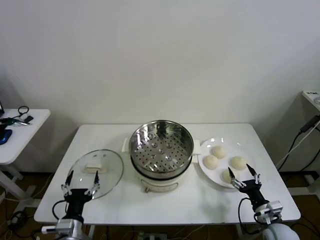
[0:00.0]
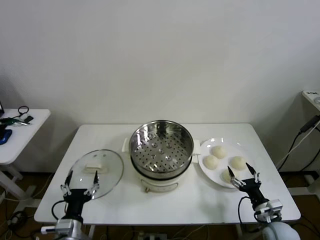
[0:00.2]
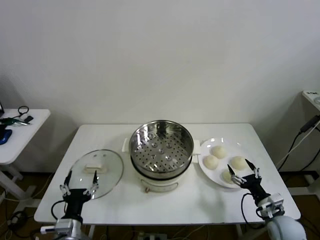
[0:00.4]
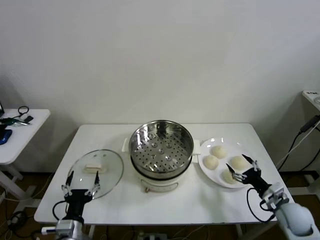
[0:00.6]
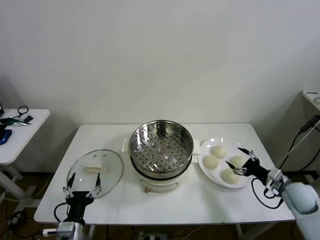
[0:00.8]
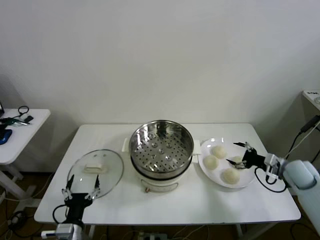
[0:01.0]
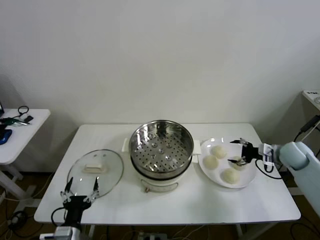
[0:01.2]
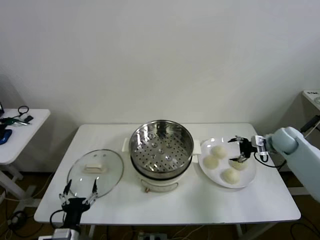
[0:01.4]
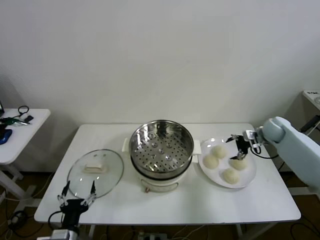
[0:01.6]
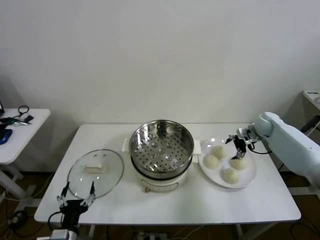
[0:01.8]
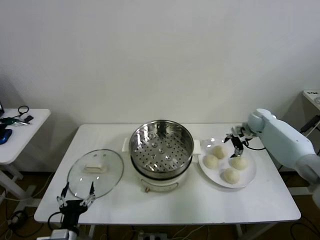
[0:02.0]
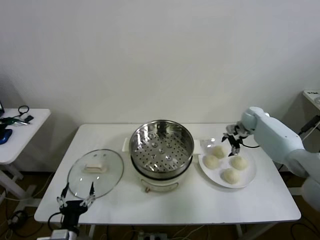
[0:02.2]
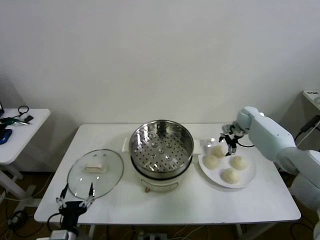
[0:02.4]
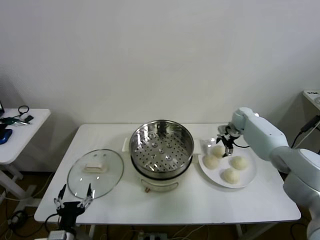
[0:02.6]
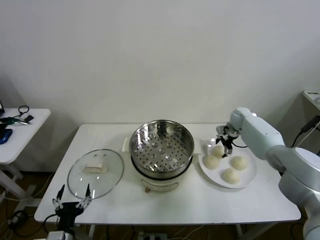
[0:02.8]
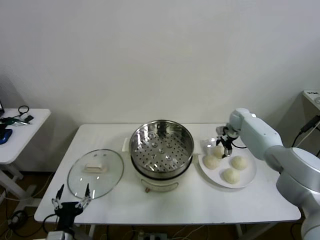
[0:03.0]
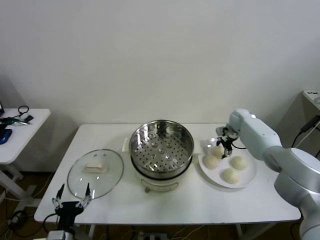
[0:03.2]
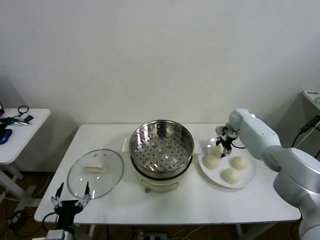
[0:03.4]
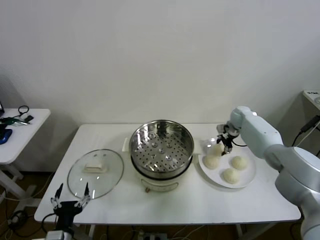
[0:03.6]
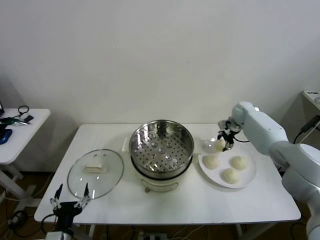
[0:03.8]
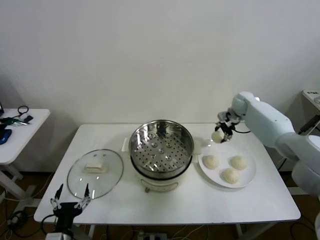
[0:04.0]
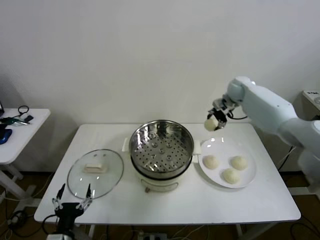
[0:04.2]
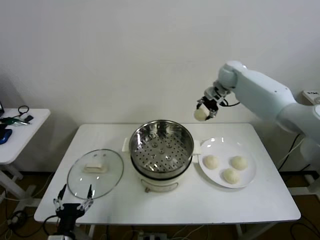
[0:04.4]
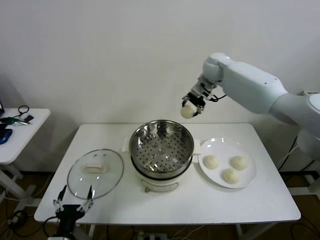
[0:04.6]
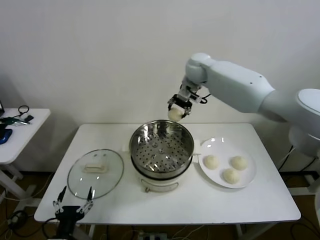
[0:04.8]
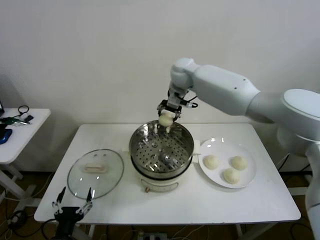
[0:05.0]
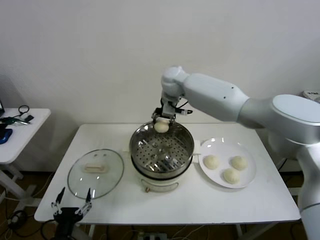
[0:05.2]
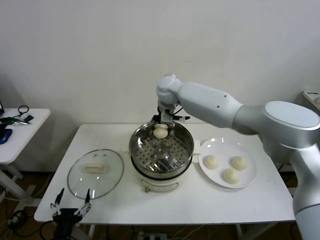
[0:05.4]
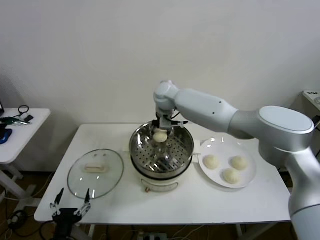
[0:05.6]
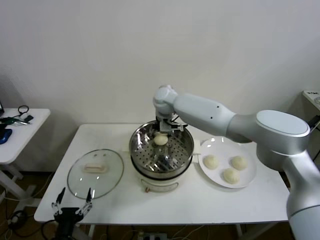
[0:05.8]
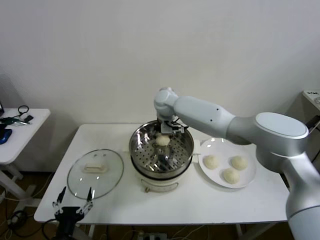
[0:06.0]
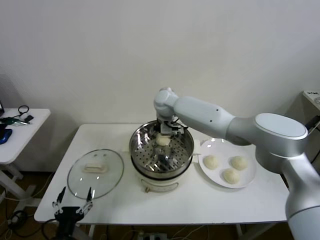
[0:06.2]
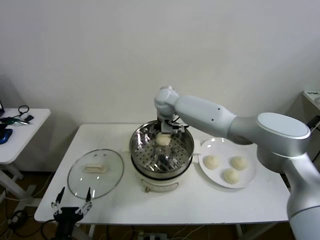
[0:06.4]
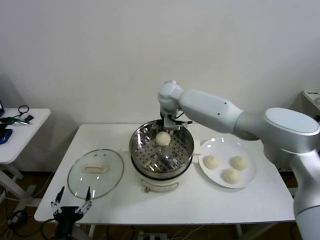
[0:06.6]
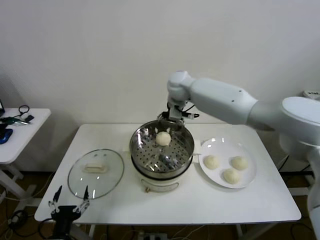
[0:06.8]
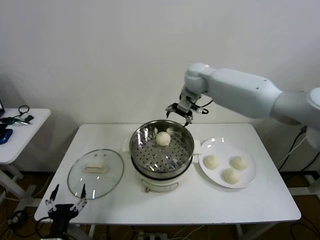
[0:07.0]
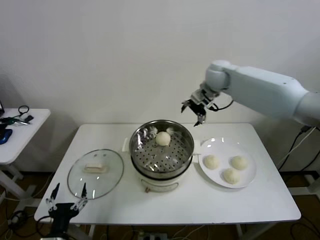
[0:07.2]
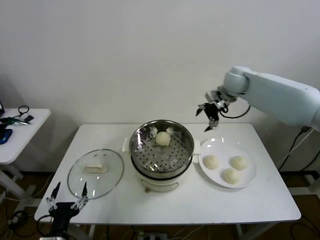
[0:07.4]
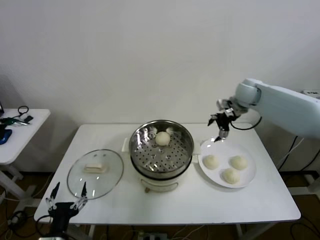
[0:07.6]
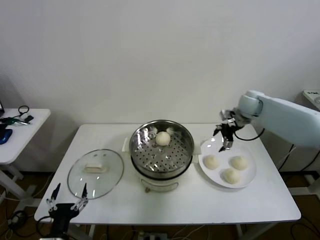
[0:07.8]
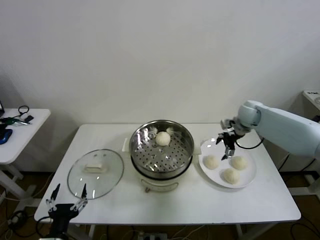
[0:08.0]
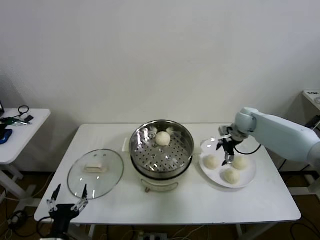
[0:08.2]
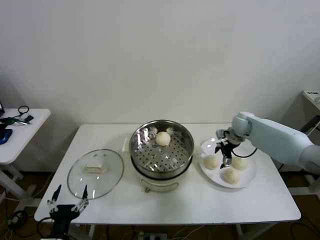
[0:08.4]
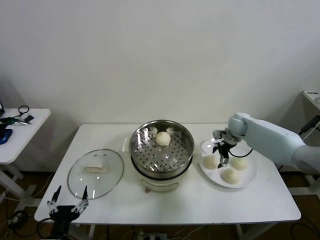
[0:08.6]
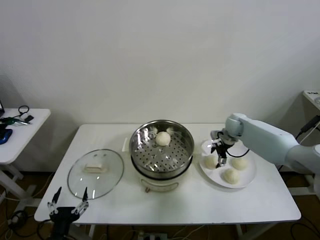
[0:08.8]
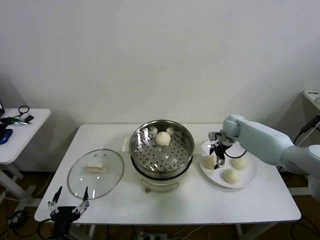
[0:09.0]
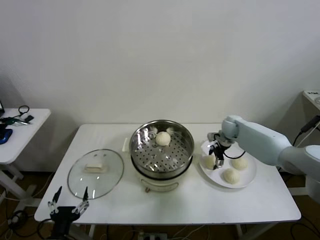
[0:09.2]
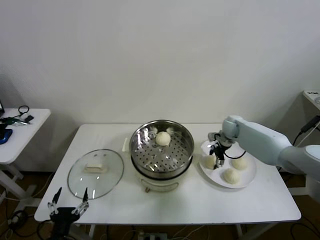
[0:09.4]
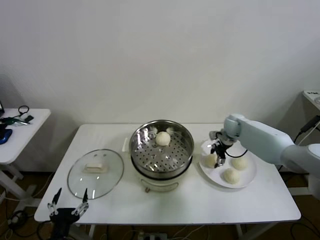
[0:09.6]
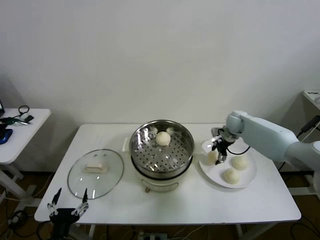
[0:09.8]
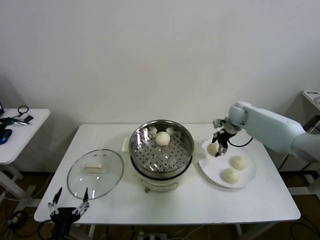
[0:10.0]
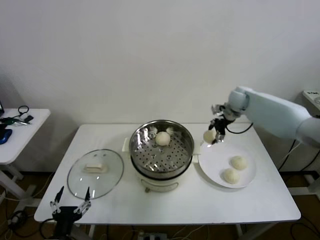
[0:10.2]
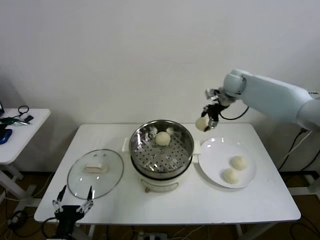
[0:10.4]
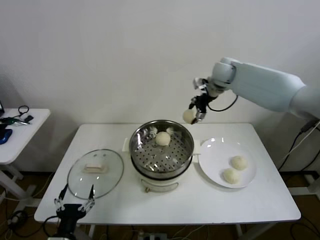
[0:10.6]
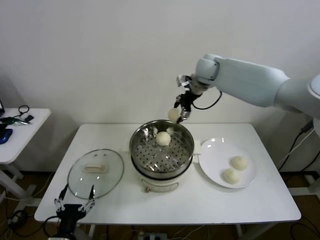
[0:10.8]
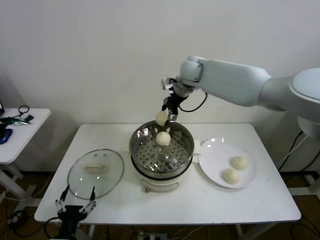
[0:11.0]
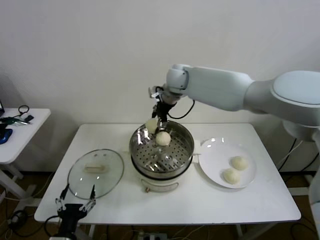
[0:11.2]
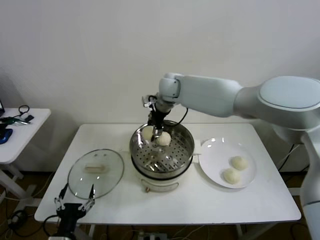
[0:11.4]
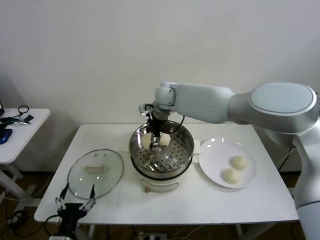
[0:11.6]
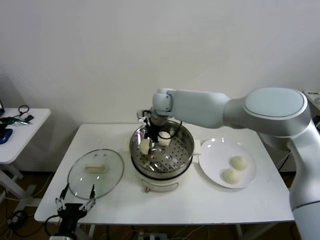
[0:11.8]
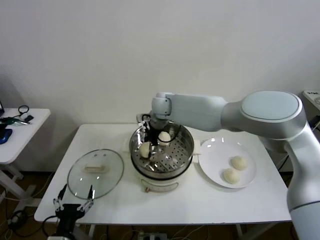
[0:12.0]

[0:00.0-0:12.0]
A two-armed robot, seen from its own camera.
Step, 0.0 to 3.2 s: Grasp the baozi in the plate with right gripper.
Step, 3.4 to 6.0 s: Place the baozi on the steamer with right gripper.
Step, 6.2 to 9.0 s: Grasp the baozi in the plate with right gripper.
1.6 to 3.0 s: The right gripper is displaced to the left and forward by some 10 cm, and closes up.
3.0 to 4.4 s: The right gripper heads upward and to the left, covering approximately 25 cm, and closes up.
4.4 to 6.0 s: The right gripper travels to the left and downward by some 25 cm, and opens up.
6.0 to 7.6 s: The right gripper shifts about 30 cm to the right, and opens up.
7.6 to 9.0 s: The right gripper travels downward by roughly 15 cm.
9.0 to 10.4 s: The right gripper is displaced upward by approximately 20 cm, and closes its fingers.
10.4 to 12.0 s: The right gripper moves to the left, about 25 cm.

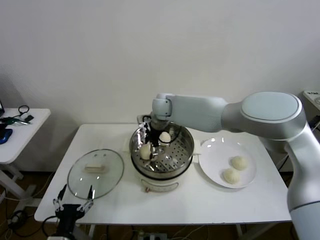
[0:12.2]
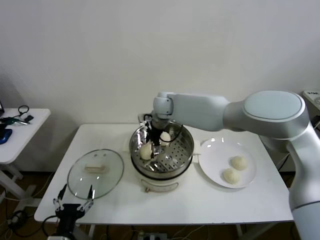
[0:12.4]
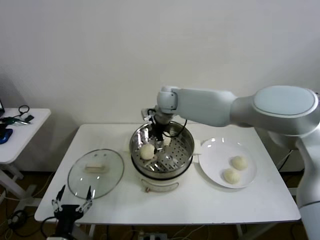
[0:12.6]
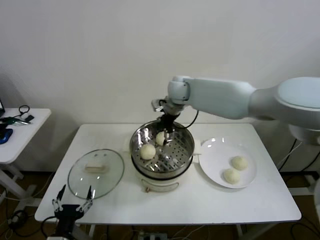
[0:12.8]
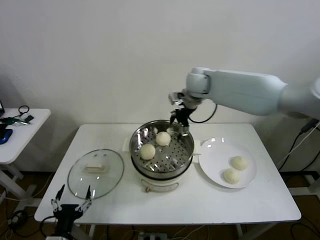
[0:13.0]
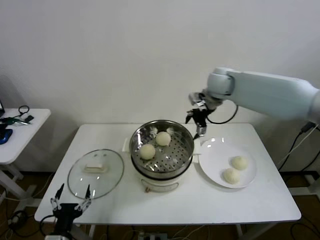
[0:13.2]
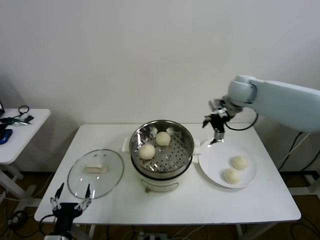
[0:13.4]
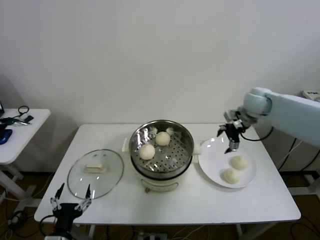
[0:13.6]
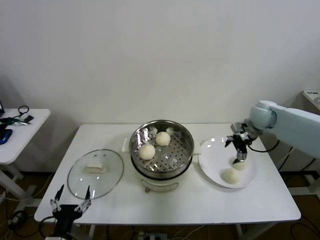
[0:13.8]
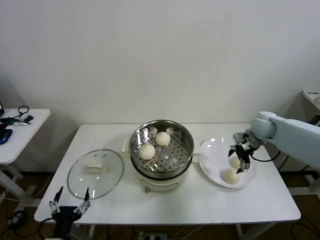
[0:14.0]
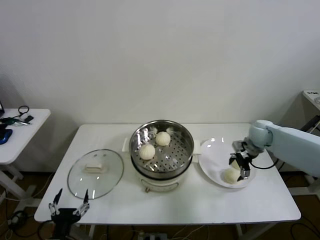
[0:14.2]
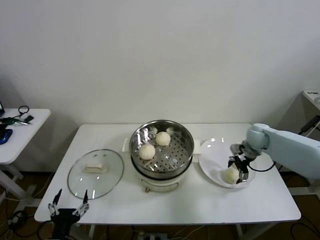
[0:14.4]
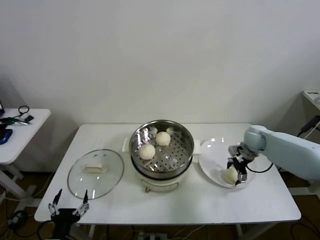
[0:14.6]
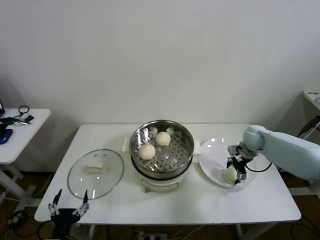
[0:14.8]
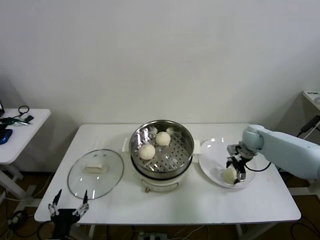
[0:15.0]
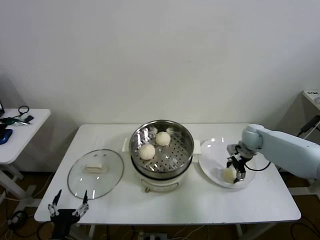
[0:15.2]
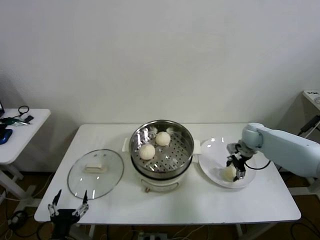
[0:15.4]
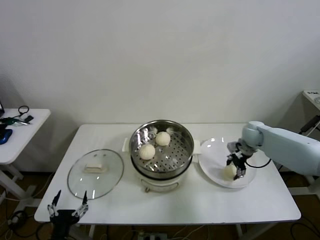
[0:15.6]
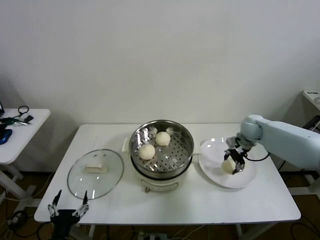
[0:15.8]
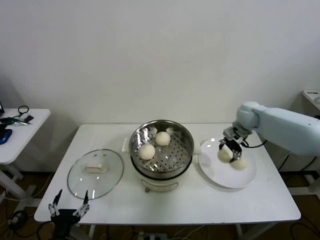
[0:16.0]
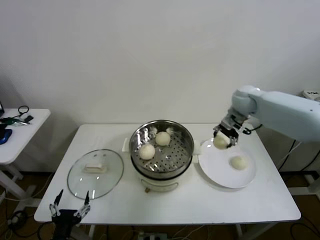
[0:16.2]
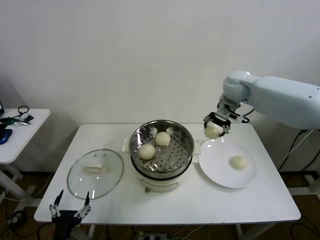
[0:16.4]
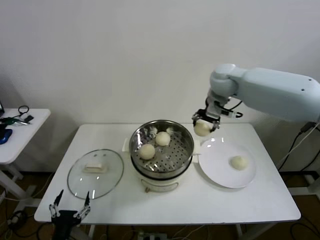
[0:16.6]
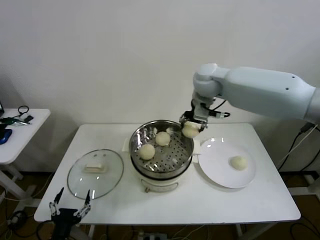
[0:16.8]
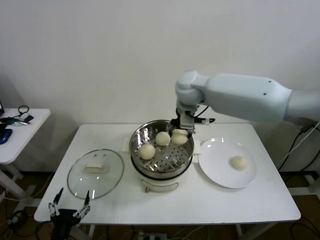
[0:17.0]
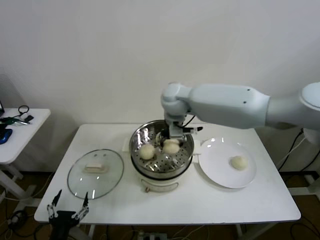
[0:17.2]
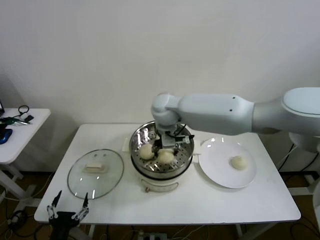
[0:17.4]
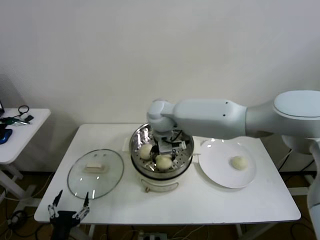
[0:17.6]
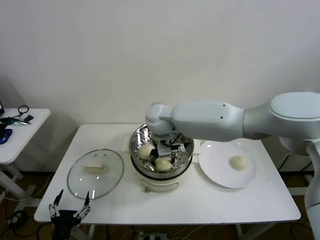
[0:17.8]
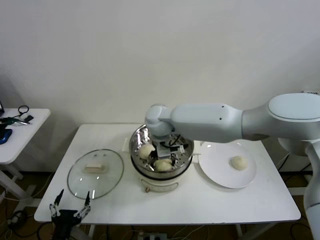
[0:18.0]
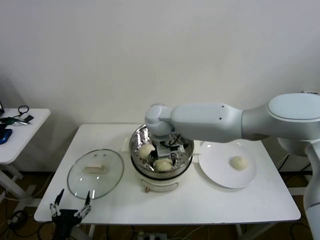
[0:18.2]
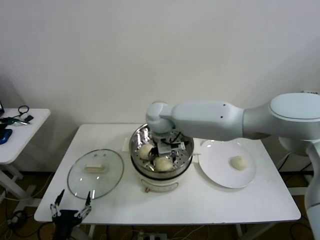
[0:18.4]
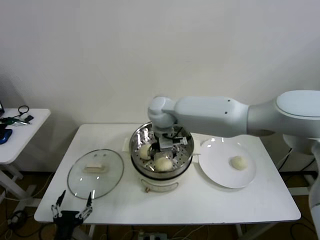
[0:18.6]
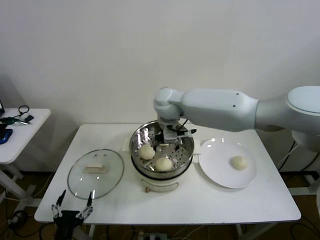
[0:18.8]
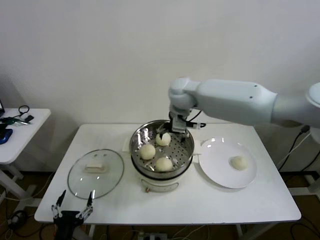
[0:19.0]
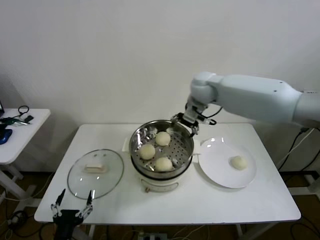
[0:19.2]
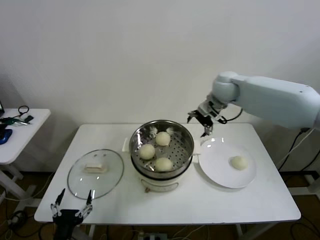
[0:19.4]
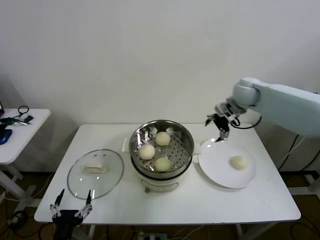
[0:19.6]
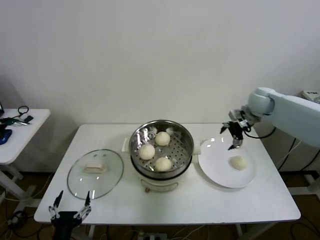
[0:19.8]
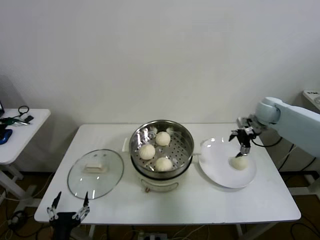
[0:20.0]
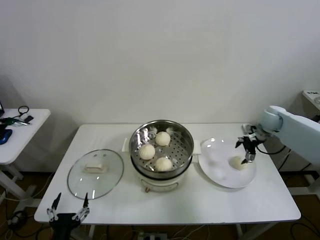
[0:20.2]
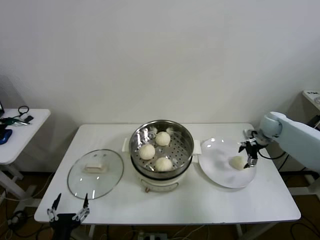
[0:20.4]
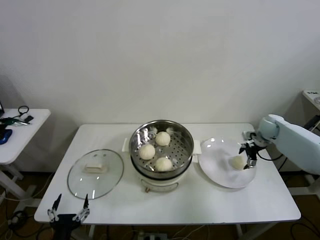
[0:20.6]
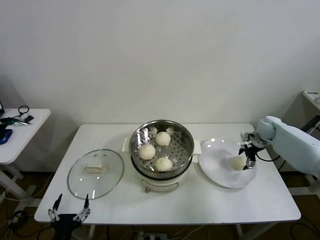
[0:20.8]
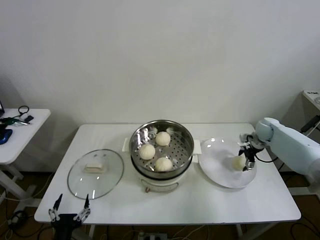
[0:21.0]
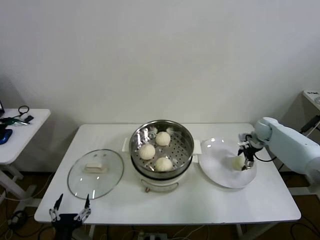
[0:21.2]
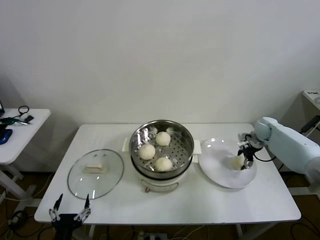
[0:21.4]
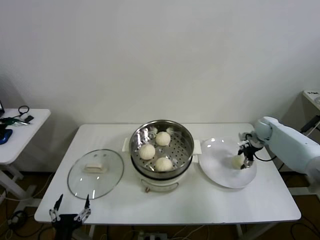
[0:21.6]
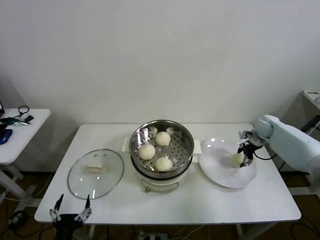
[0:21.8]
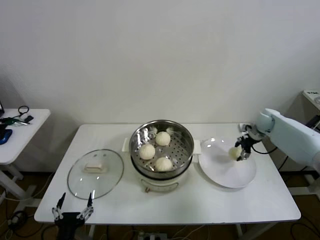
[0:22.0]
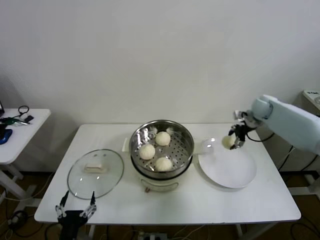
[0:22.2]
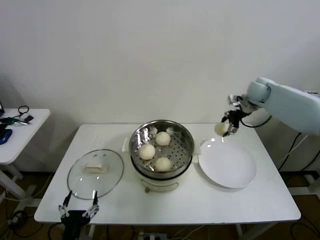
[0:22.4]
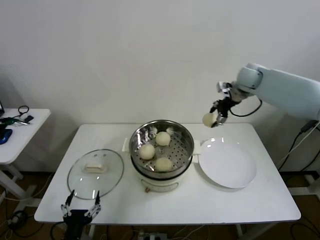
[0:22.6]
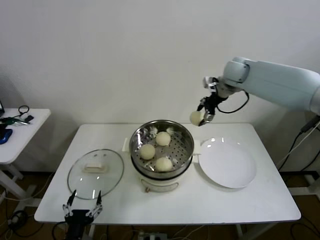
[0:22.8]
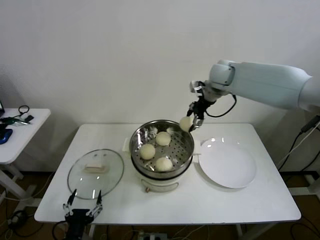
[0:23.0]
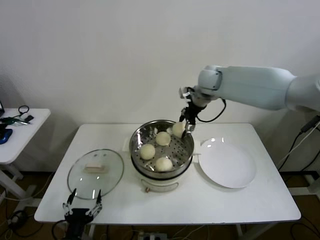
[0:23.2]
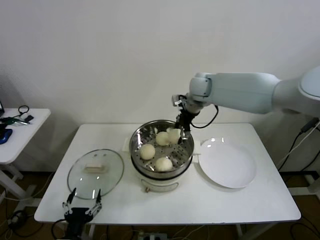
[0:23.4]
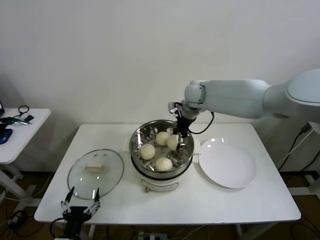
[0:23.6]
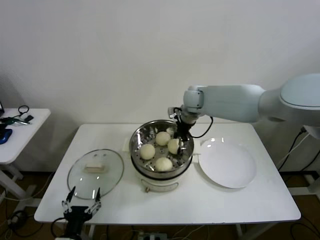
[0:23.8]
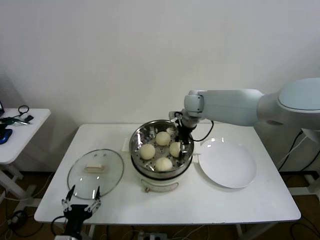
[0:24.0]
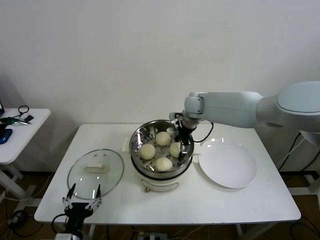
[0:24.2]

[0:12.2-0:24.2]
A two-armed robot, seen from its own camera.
Step, 12.4 to 15.2 s: Grasp the baozi in the plate with right gripper.
Step, 15.4 to 18.0 s: Place the baozi on the steamer with right gripper.
Step, 18.2 to 21.4 s: Grasp the baozi in the plate with right gripper.
12.2 to 13.8 s: The right gripper is displaced to the right by about 35 cm.
13.8 to 15.2 s: The right gripper travels downward by some 10 cm, and closes up.
15.2 to 16.6 s: The right gripper goes some 30 cm upward and to the left.
16.6 to 18.2 s: The right gripper goes roughly 25 cm to the left and downward, and opens its fingers.
18.2 to 19.8 s: The right gripper moves to the right, about 35 cm.
19.8 to 21.2 s: The right gripper shifts about 15 cm downward and to the right.
21.2 to 22.6 s: The right gripper is displaced upward and to the left by approximately 25 cm, and closes up.
22.6 to 24.2 s: The right gripper moves to the left and downward, roughly 20 cm.
